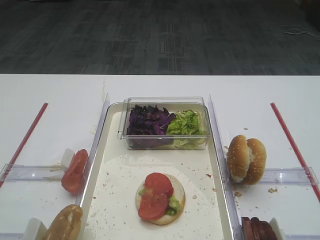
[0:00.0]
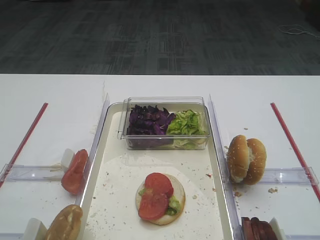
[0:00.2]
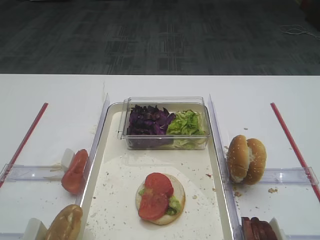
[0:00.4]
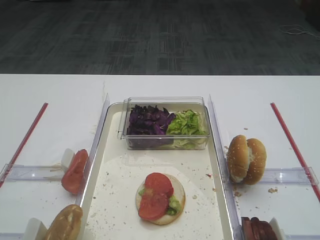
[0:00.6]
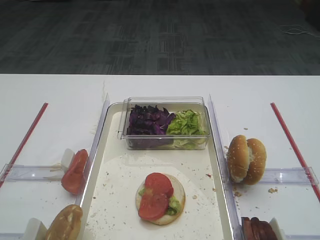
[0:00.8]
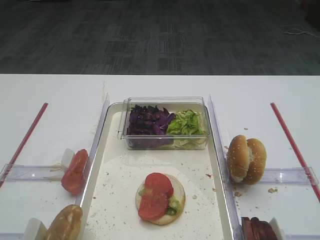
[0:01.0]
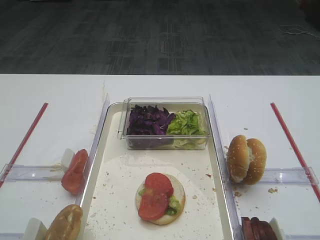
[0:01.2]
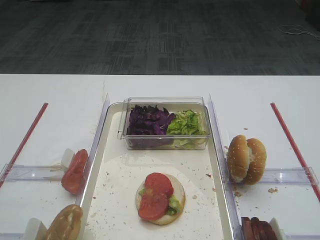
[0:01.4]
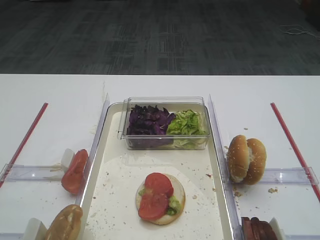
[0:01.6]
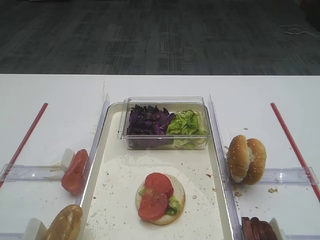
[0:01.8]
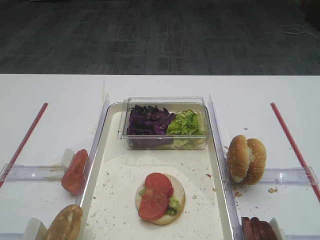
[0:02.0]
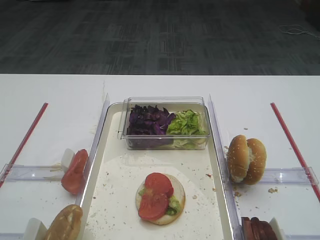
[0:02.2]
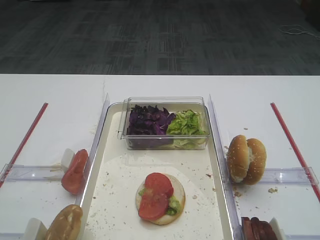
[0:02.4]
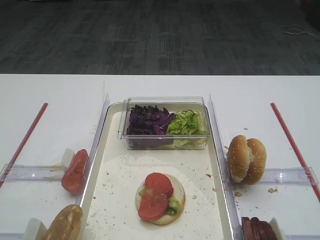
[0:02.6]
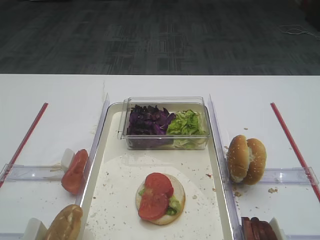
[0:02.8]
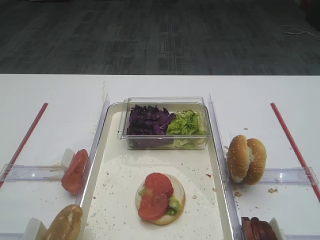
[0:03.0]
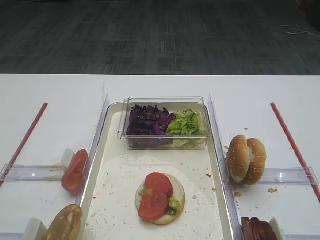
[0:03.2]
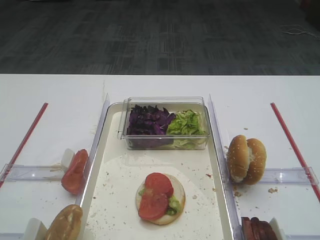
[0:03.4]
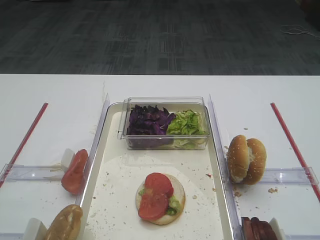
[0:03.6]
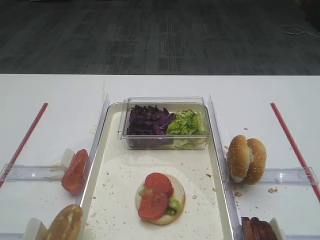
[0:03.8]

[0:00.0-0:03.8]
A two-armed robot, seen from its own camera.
0:00.0 to 0:03.8: Both grippers stay about where they are.

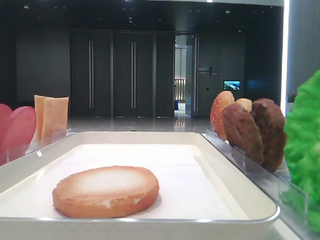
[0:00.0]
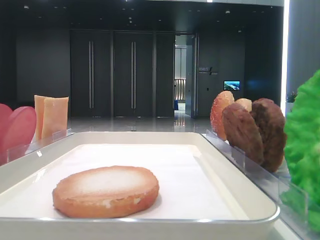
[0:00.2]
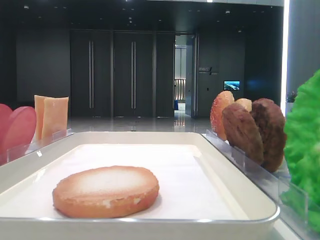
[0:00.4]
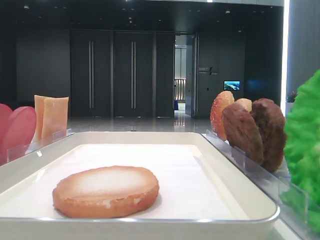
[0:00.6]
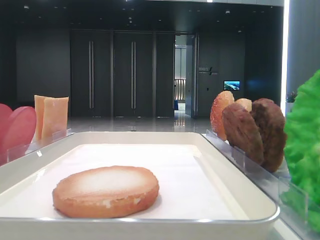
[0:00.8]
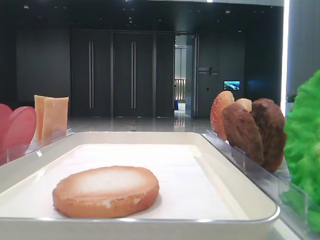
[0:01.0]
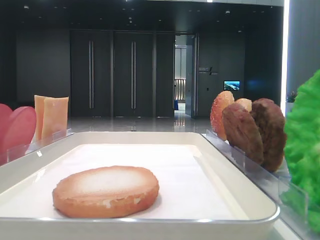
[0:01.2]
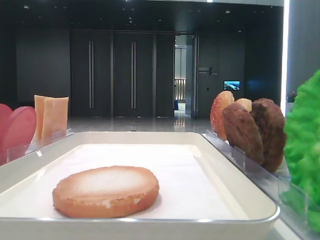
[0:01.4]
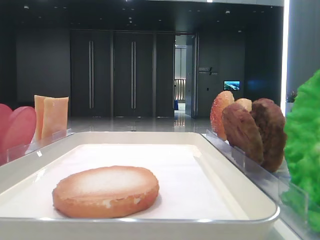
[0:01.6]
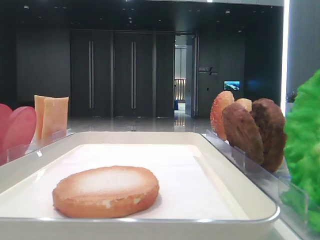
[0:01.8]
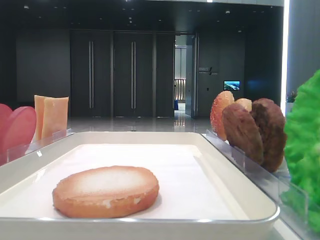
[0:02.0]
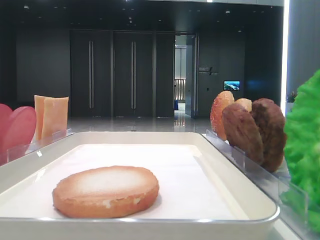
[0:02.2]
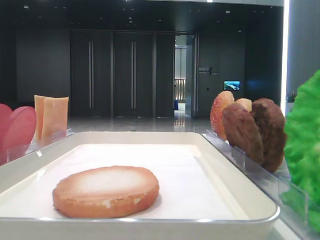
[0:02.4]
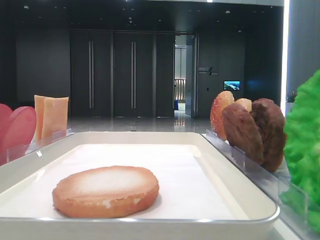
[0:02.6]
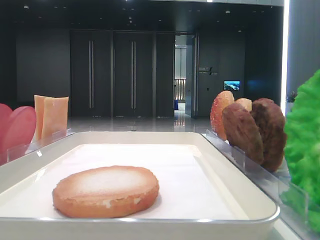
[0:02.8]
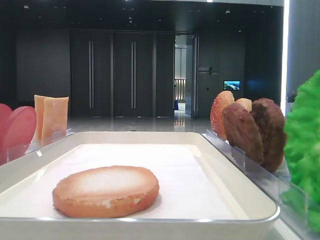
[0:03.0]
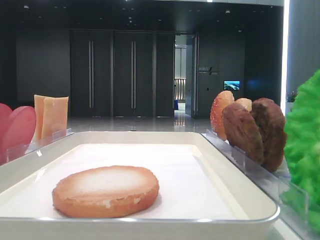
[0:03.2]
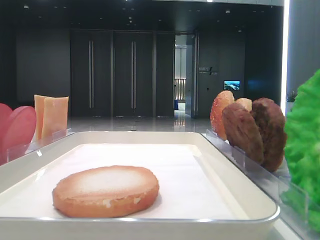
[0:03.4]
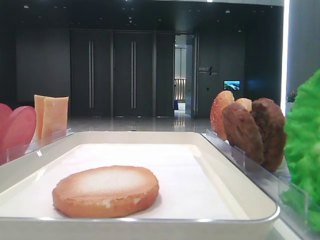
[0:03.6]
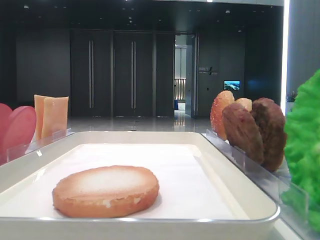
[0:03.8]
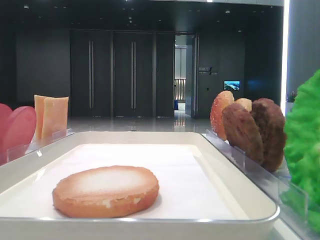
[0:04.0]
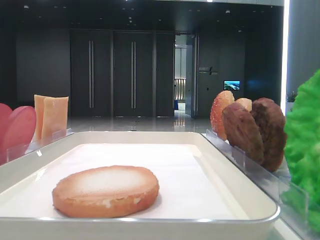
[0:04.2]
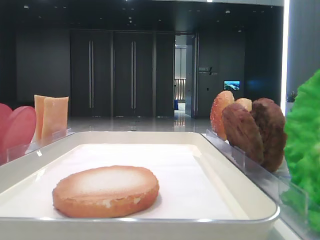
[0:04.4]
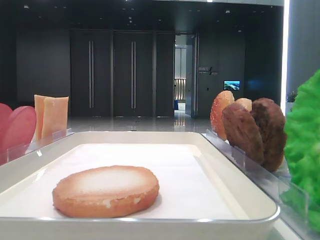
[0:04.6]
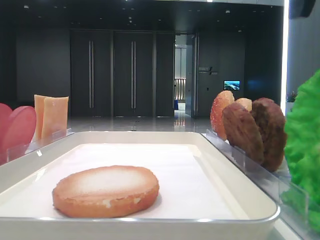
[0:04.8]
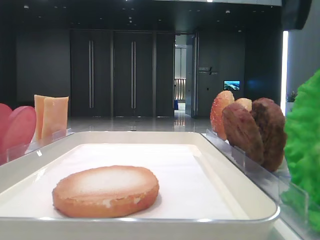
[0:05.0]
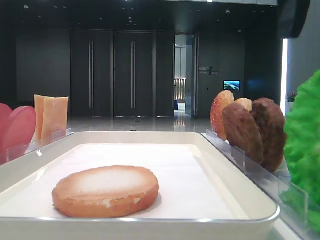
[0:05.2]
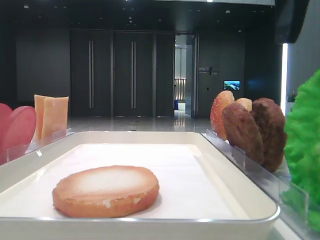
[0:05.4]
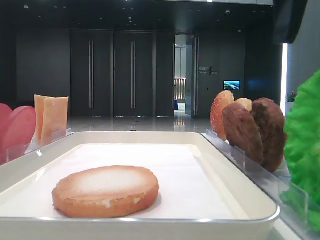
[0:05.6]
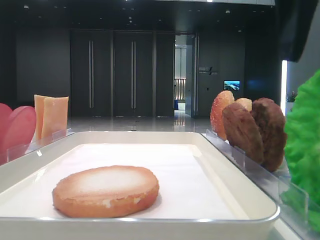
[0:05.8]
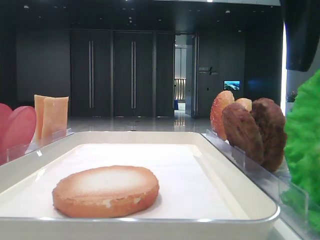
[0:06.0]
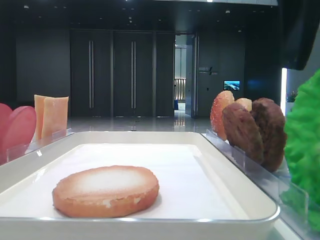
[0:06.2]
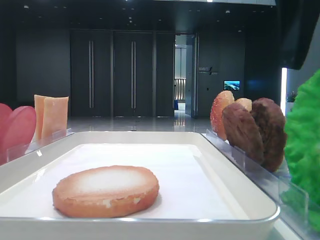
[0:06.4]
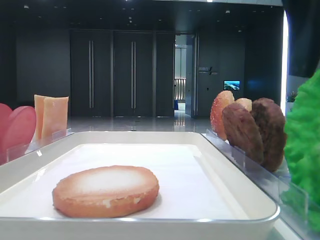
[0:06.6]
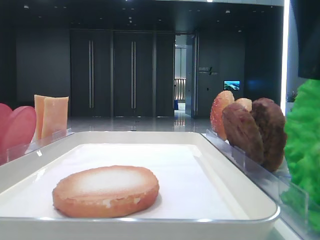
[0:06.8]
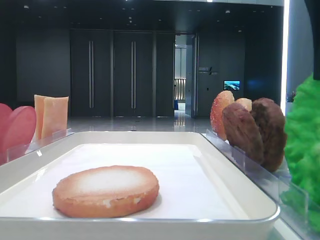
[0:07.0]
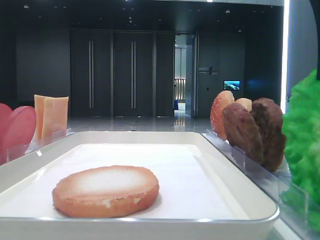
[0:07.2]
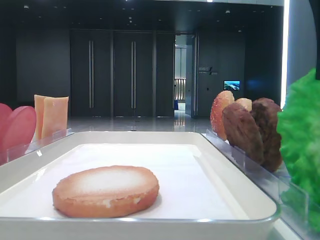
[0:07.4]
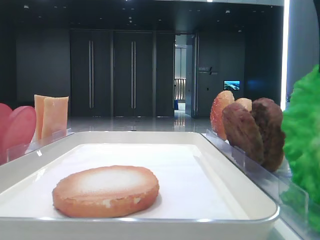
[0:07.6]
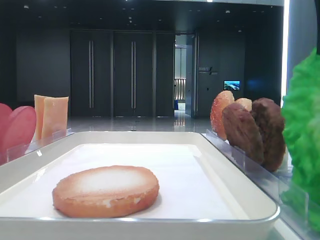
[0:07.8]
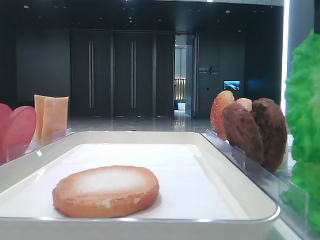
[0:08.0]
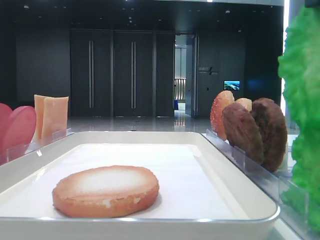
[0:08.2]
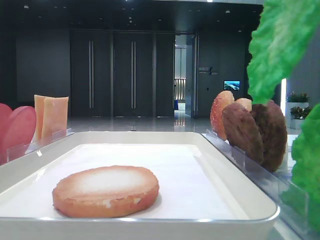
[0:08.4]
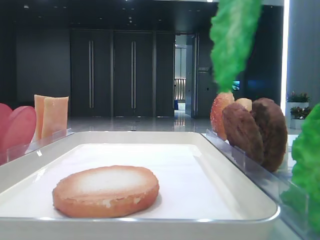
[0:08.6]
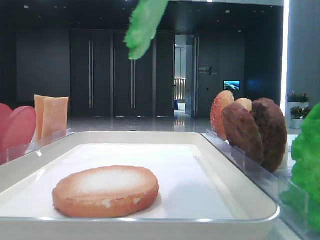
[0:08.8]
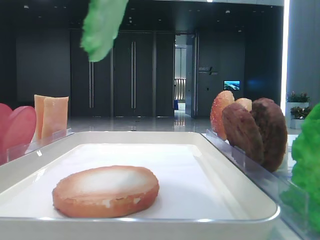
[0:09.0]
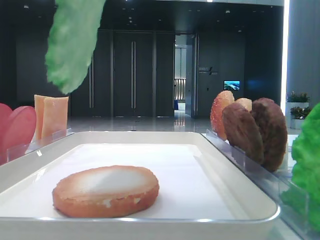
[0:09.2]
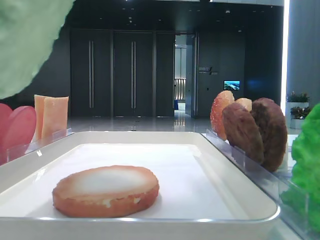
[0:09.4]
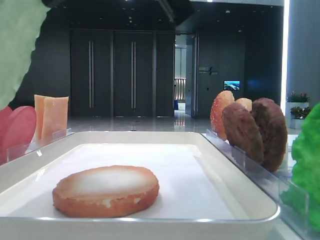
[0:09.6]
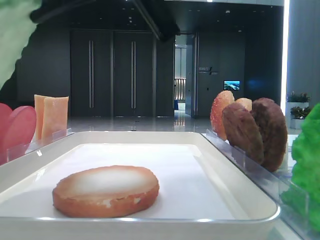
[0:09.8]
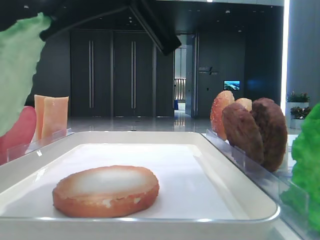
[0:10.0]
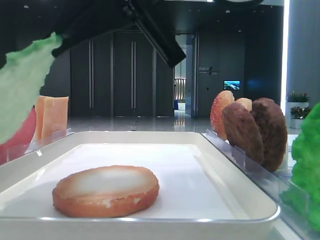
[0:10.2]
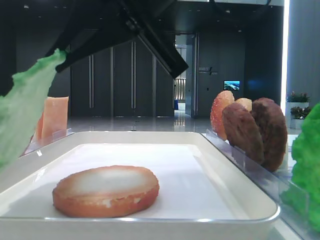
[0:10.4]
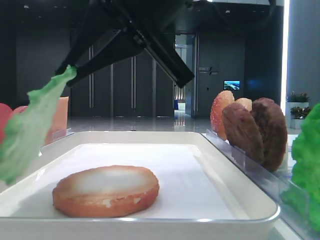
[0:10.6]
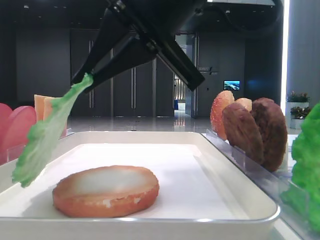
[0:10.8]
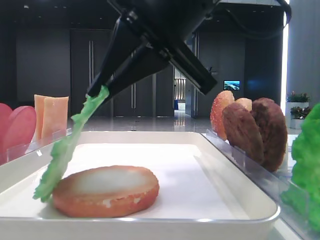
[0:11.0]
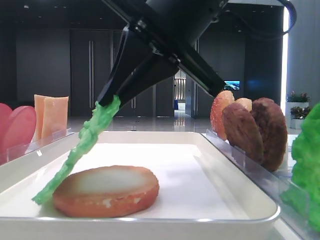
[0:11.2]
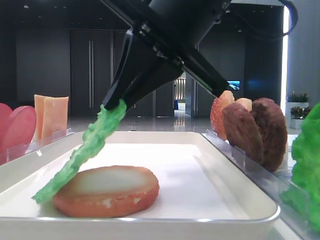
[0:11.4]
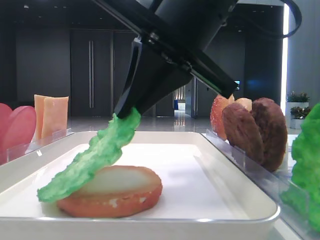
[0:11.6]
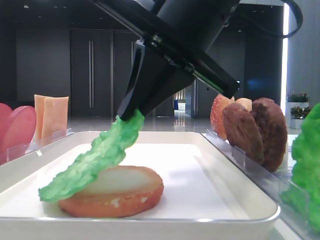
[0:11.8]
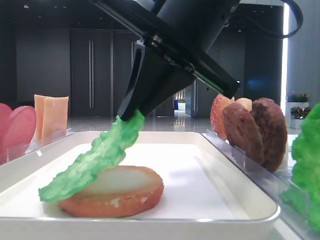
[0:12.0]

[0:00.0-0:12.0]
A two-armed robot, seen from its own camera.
Step, 0:00.0 to 0:07.0: Grab the lettuce leaf with the right hand.
0:04.4 to 0:06.0: The right gripper shifts approximately 5 cm downward.
0:06.0 to 0:07.6: The right gripper closes up.
0:07.6 to 0:09.0: The right gripper travels to the left and upward by roughly 10 cm.
0:09.0 to 0:10.4: The right gripper goes approximately 15 cm downward, to the left and forward.
0:10.4 to 0:12.0: The left gripper closes its fingers.

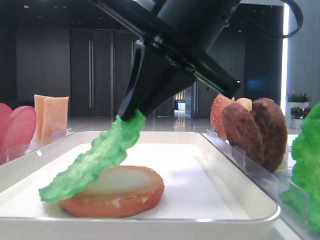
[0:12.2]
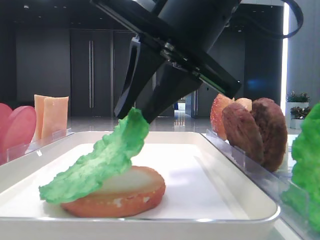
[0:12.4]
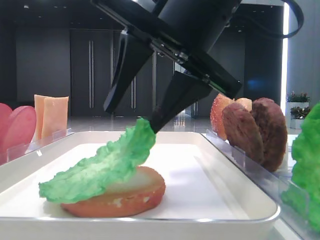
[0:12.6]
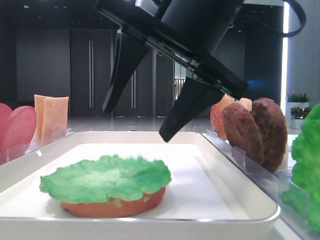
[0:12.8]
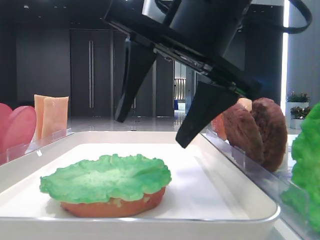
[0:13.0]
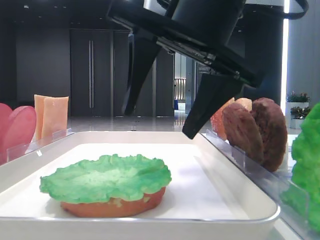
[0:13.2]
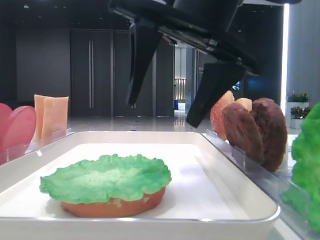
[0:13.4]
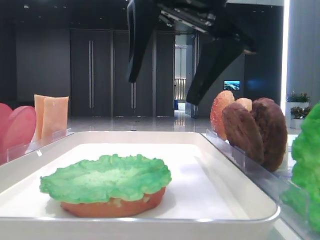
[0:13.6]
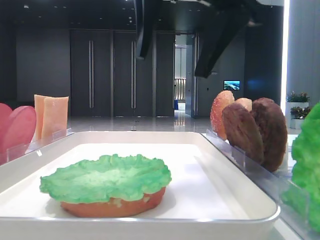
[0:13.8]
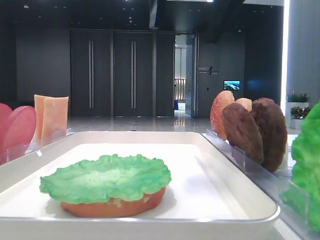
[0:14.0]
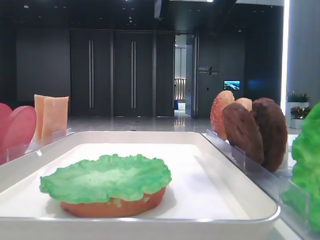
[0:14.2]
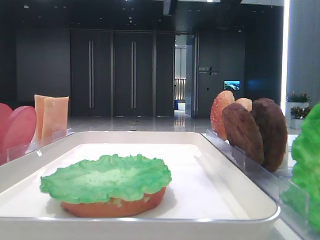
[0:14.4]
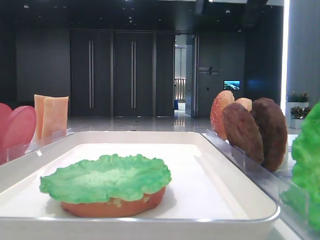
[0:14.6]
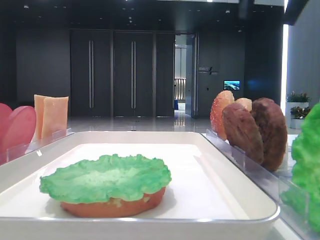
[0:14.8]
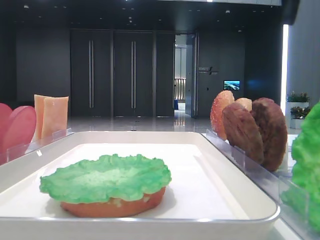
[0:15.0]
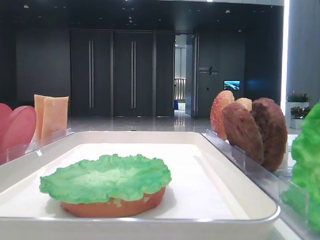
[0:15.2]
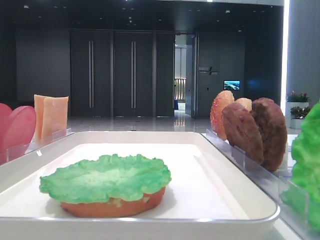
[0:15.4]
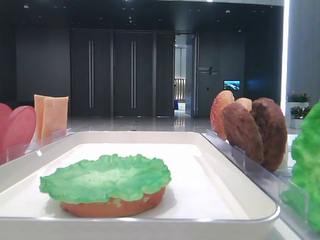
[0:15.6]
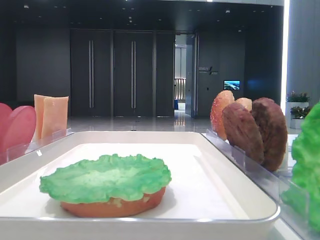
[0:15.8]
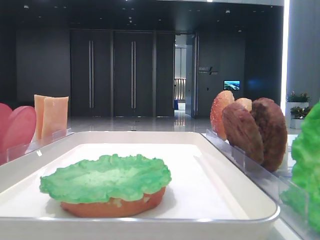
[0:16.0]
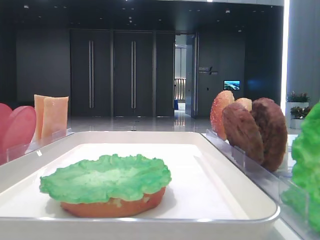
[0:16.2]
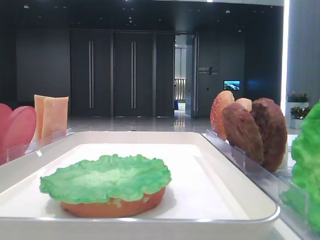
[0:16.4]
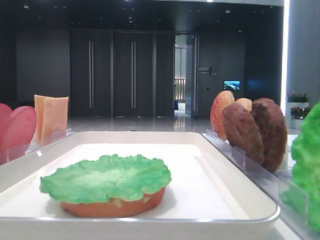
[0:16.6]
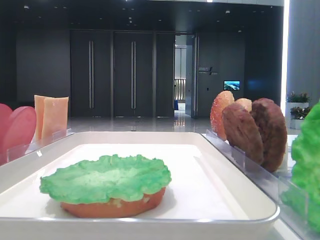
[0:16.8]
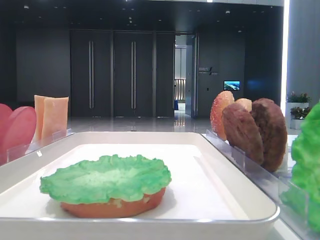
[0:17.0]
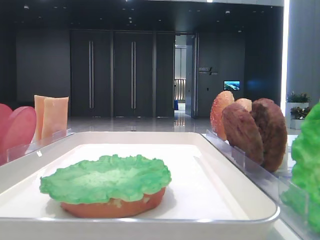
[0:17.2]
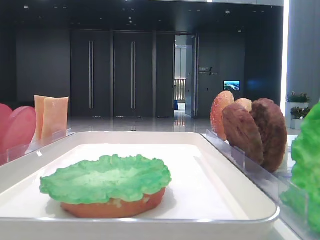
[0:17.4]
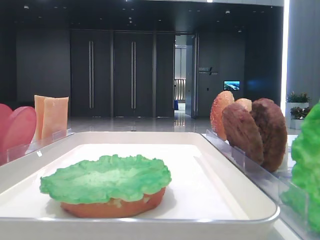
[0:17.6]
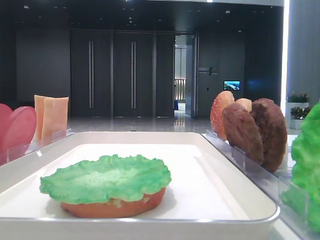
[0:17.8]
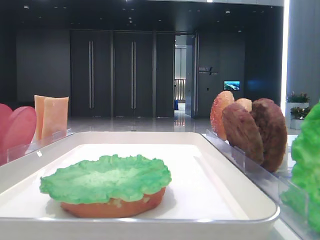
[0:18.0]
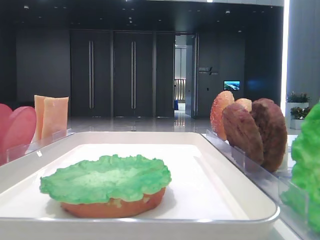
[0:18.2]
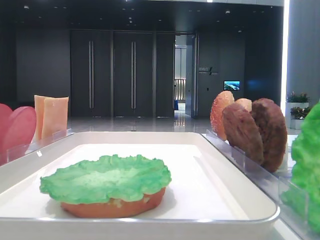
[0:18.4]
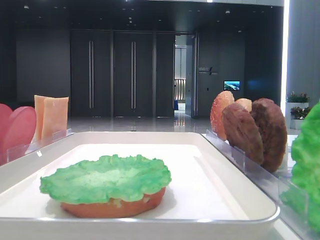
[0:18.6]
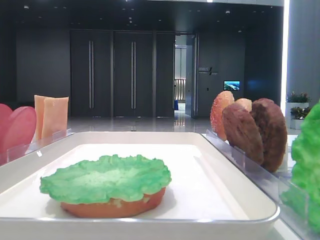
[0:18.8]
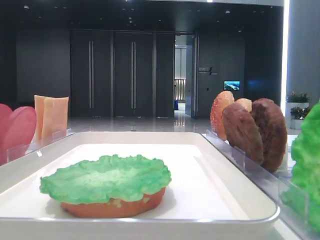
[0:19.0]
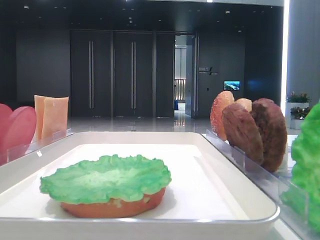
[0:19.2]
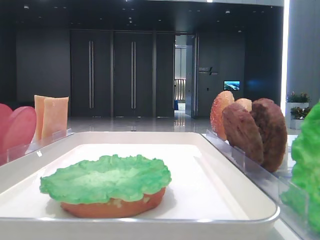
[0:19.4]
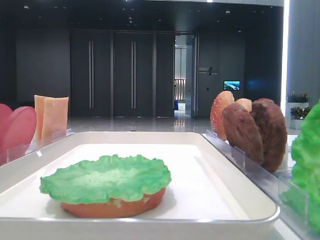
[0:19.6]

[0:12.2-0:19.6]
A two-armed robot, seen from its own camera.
0:12.2 to 0:13.6: The left gripper closes, while the right gripper opens up.
0:13.6 to 0:15.2: The right gripper heads to the right and upward, covering about 25 cm.
0:18.2 to 0:19.6: Both grippers stay about where they are.
